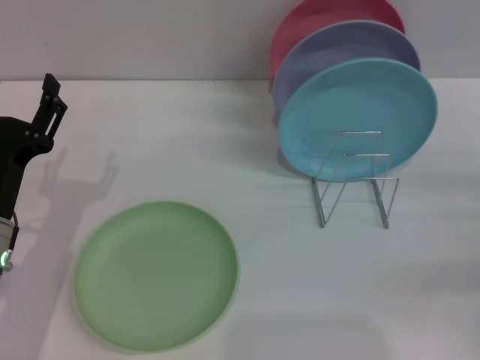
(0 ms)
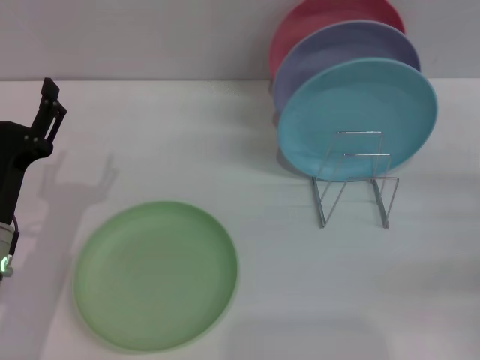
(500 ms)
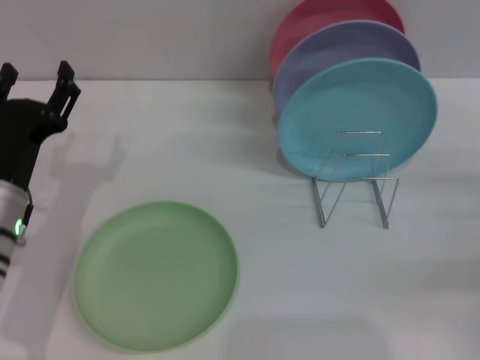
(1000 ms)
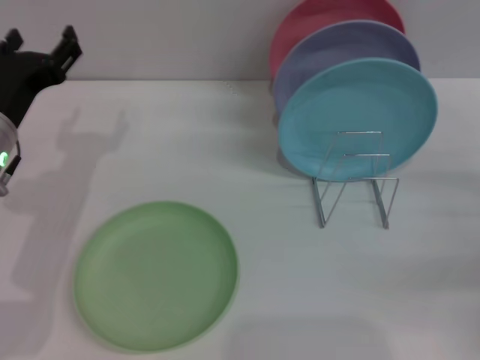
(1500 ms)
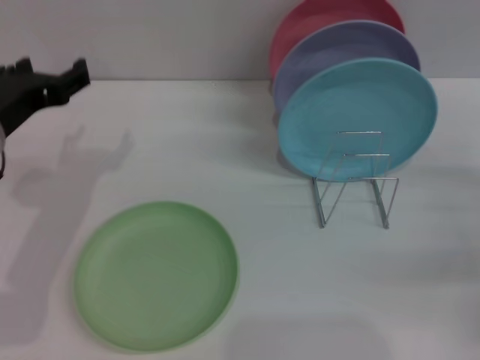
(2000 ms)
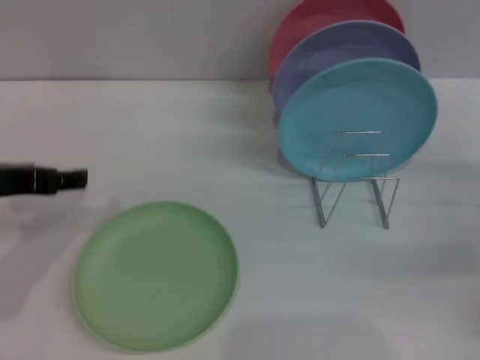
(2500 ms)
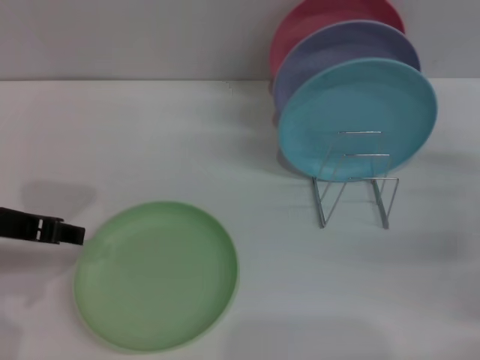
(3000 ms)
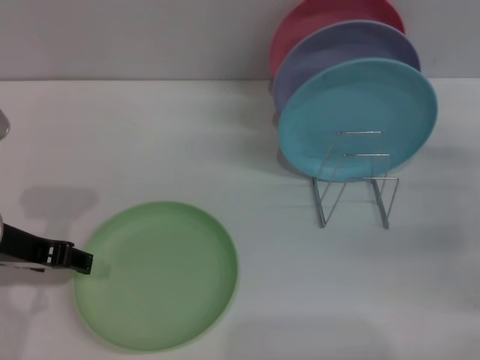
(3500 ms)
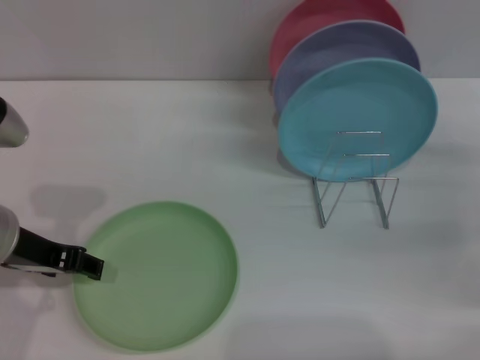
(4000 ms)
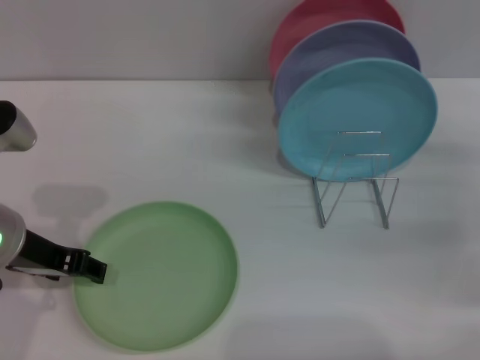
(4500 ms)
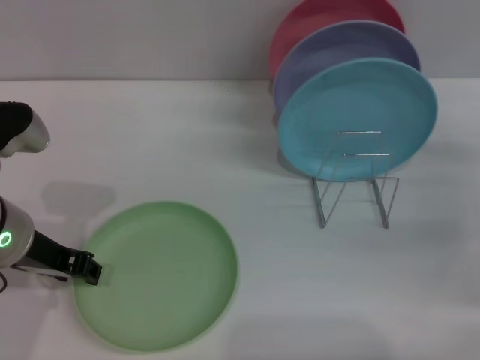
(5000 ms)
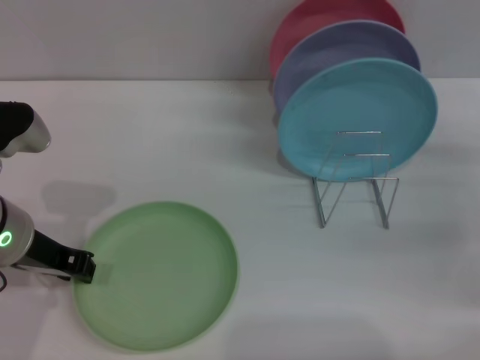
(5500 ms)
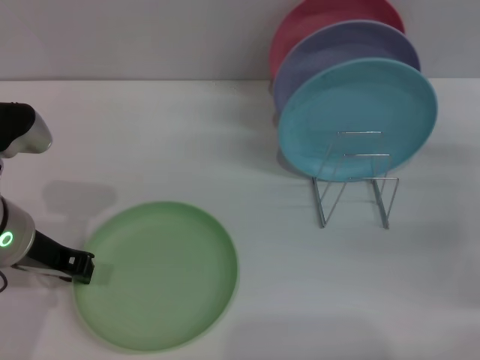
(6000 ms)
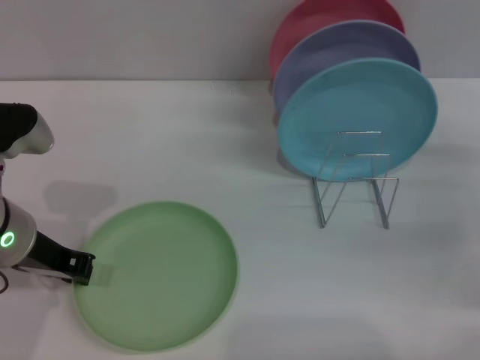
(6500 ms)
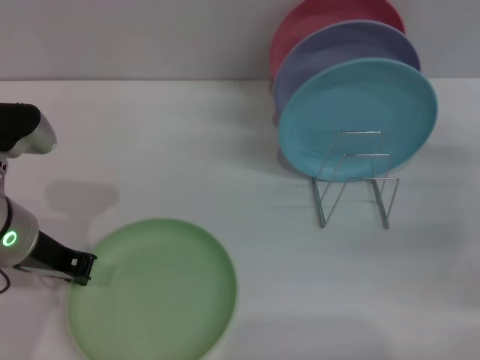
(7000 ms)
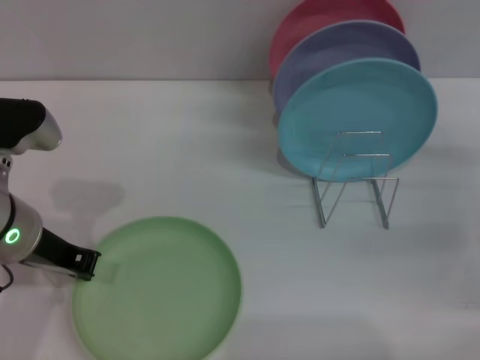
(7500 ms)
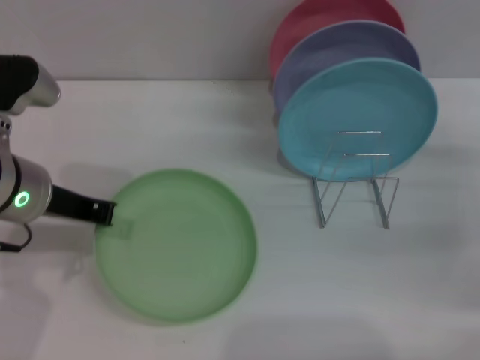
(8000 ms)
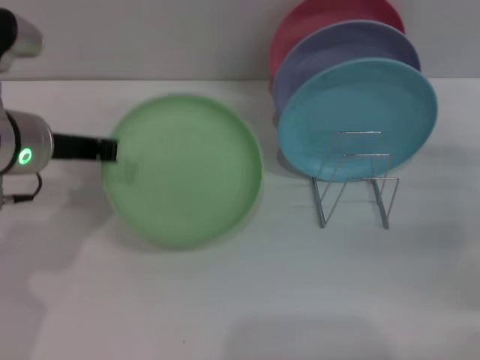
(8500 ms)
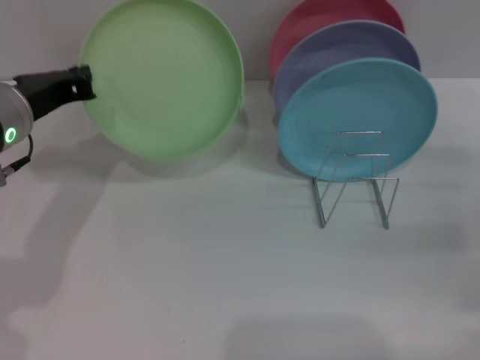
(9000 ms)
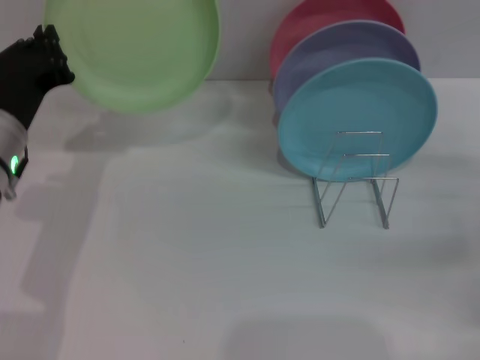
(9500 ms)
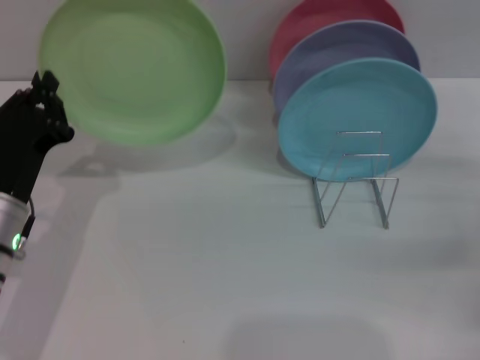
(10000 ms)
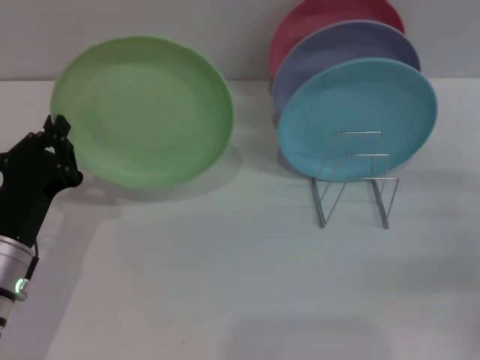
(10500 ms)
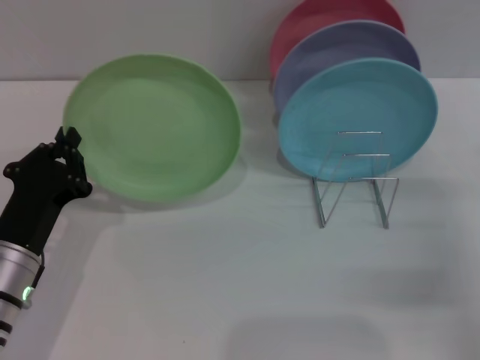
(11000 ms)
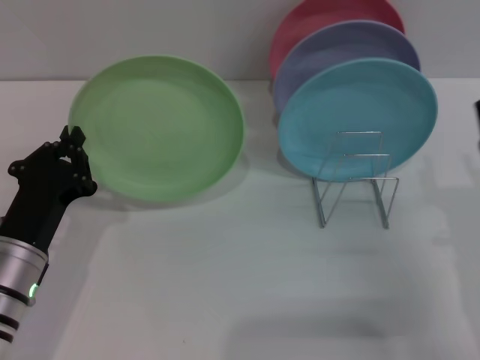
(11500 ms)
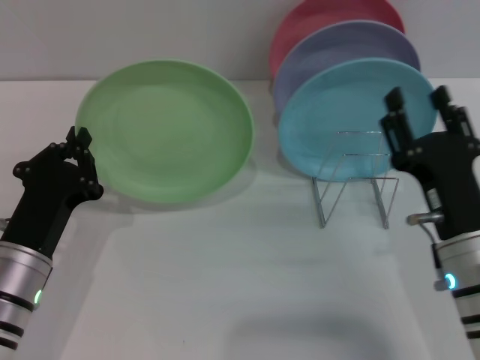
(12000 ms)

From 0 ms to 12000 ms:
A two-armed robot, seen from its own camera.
Task of the whole recording: Grip the plate with one hand, pass it to the other, then set it on the shelf.
Step, from 0 ms to 7500 ms: Pick up the plate with the left gripper.
From 0 ms to 2000 ms: The left gripper is displaced upward by roughly 10 cm.
From 4000 ms to 6000 ms: The left gripper closes its fingers.
From 6000 ms to 8000 ms: The grippers stay close to where they were, moving slightly.
From 8000 ms to 10000 ms: The left gripper moves downward, approximately 10 cm.
From 10000 ms to 12000 ms: The right gripper moves to the left and backward, some 15 cm.

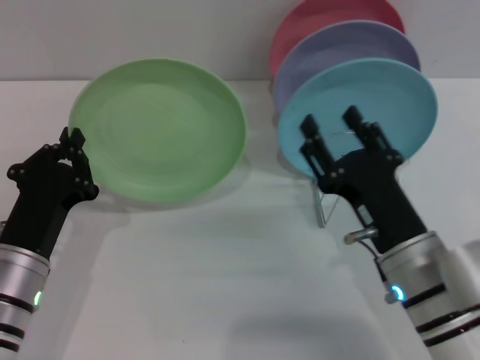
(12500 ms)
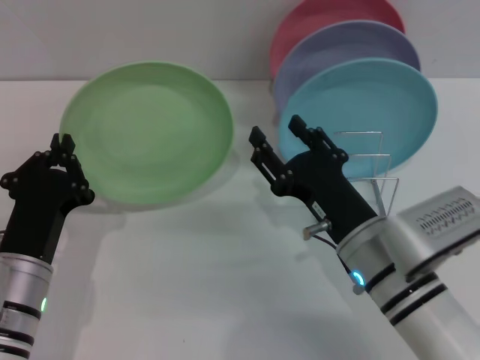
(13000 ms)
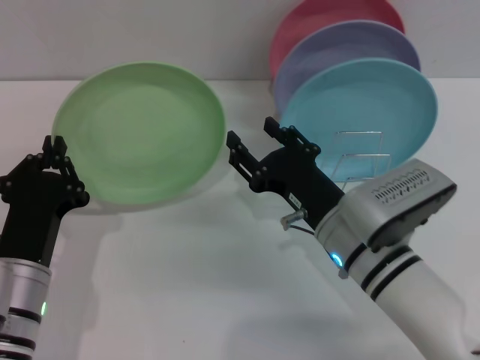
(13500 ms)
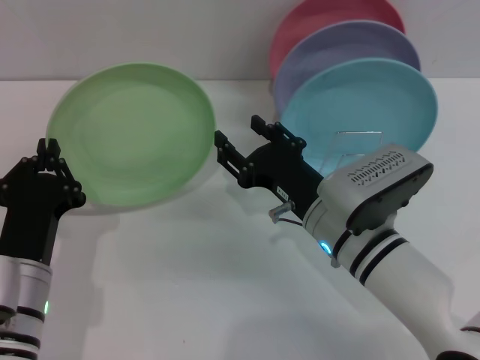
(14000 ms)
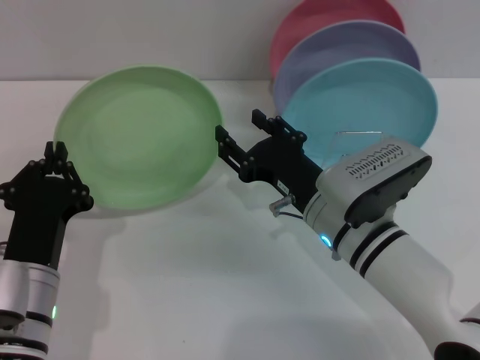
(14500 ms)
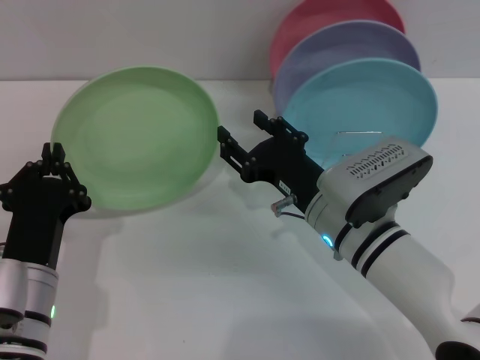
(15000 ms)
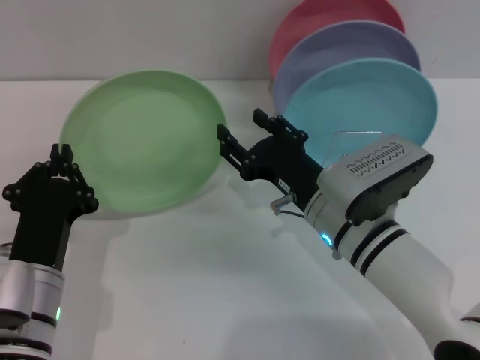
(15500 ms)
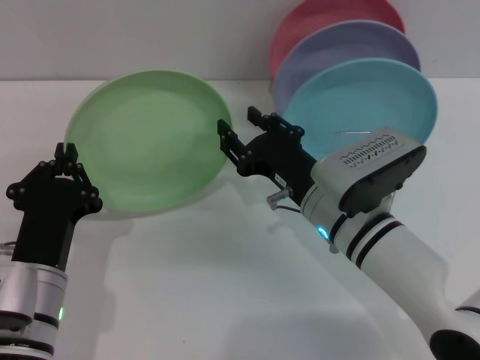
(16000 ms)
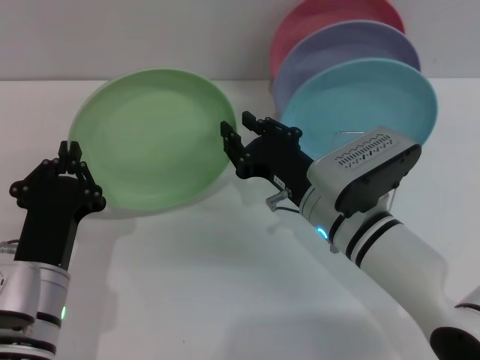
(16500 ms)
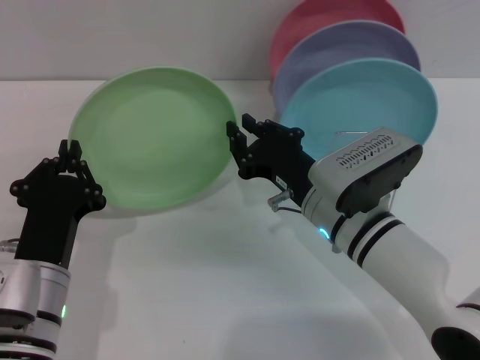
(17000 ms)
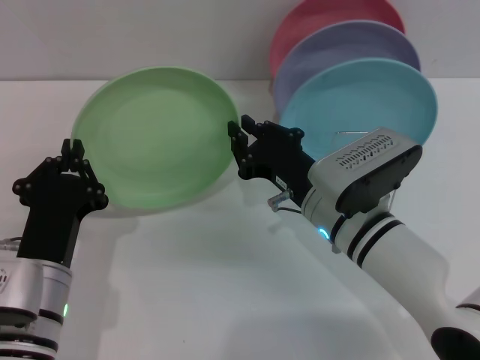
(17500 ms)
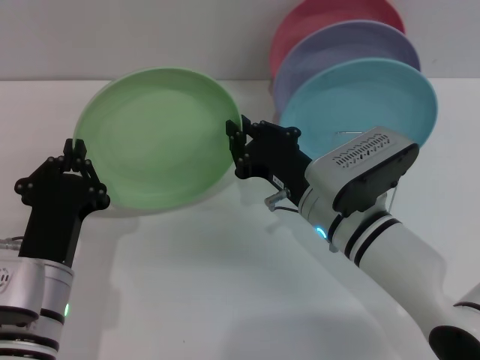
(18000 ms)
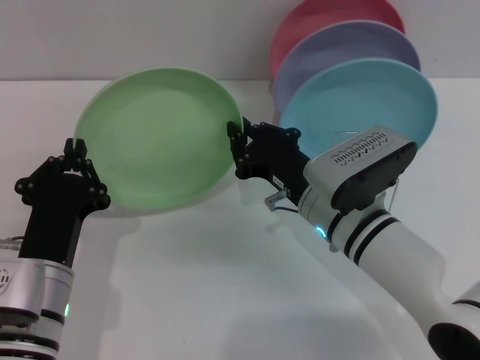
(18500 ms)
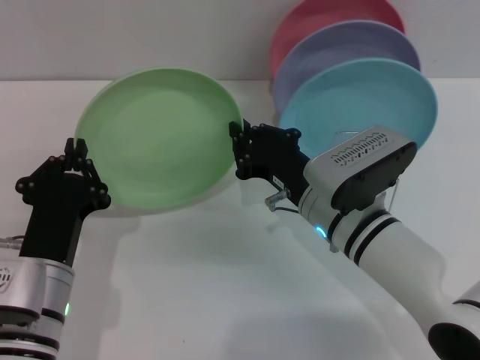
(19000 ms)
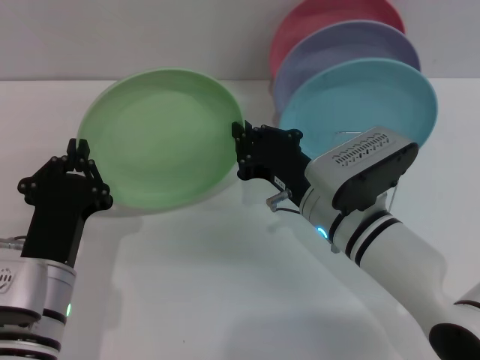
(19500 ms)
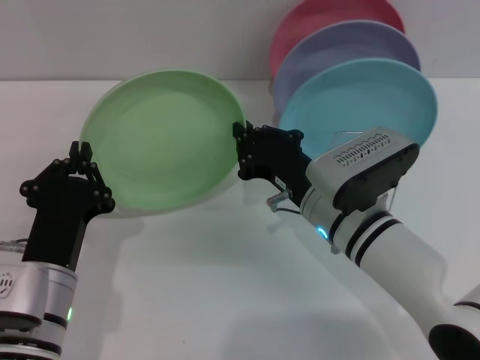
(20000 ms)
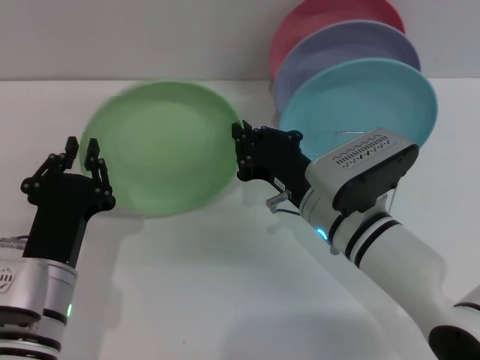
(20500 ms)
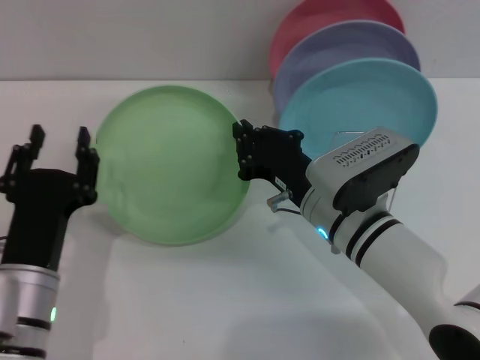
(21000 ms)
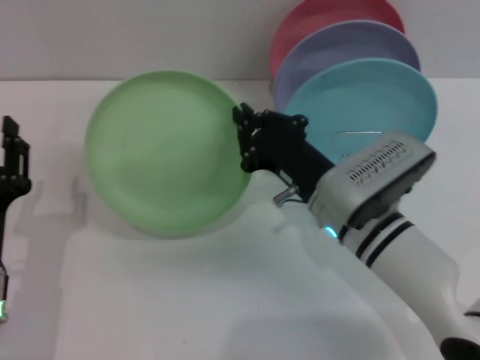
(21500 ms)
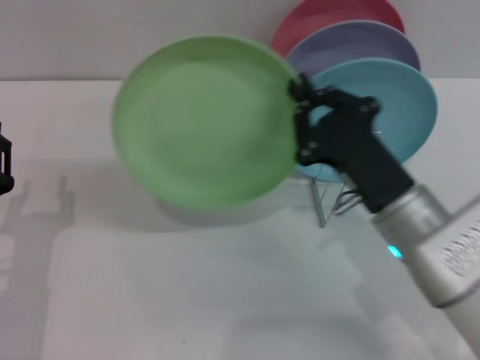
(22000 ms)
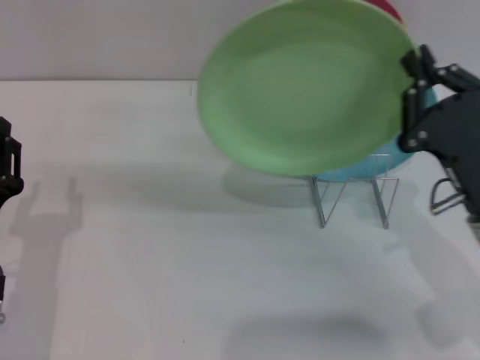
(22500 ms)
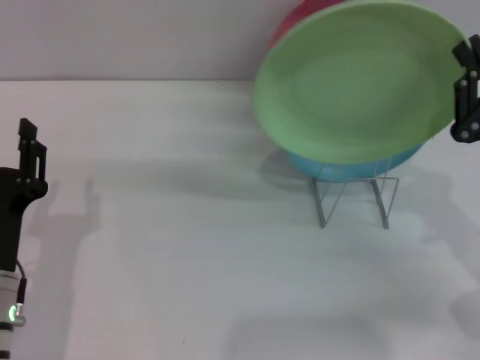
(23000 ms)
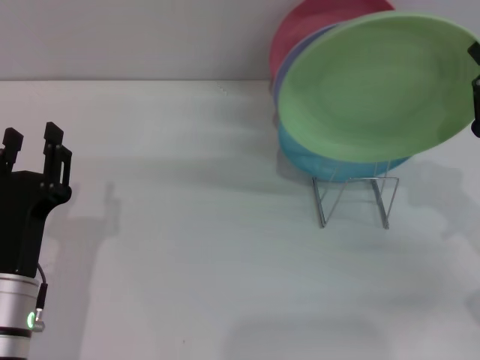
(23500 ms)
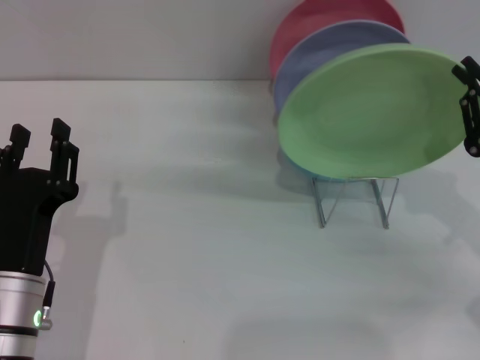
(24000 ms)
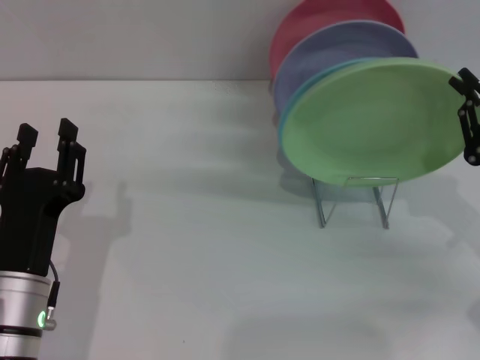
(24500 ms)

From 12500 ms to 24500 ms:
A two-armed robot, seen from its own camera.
Task of the whole recording: Grip the plate with one hand, pass it to the other, then set it on the shelf.
Step, from 12500 ms to 20500 ms: Pass the plate from the left gripper to the right gripper.
From 12500 ms to 14500 ms: The right gripper goes roughly 5 cm forward.
From 14500 ms to 16500 ms: The right gripper closes its fingers.
From 16500 ms to 18500 ms: The right gripper closes up.
From 18500 ms to 20500 ms: Both grippers stay put.
From 20500 ms to 22500 ms: The right gripper shifts roughly 15 cm to the right and backward, while the left gripper shifts roughly 5 cm to the left, and opens up.
From 22500 ms to 24500 ms: The right gripper shifts some 10 cm to the right.

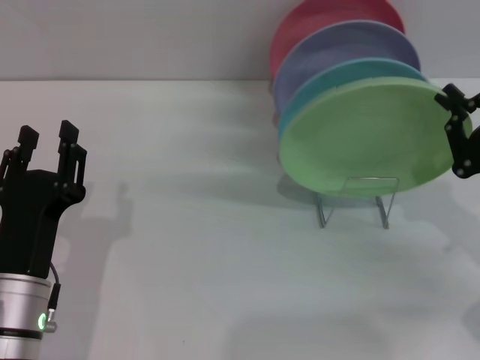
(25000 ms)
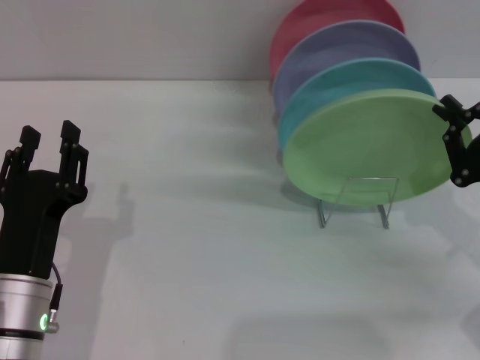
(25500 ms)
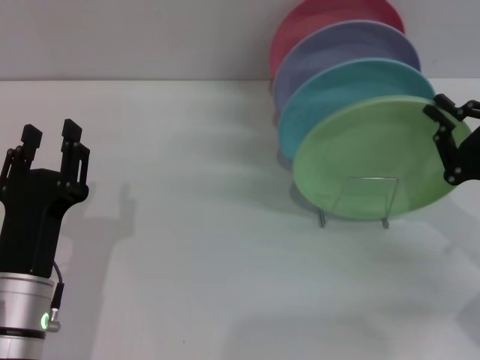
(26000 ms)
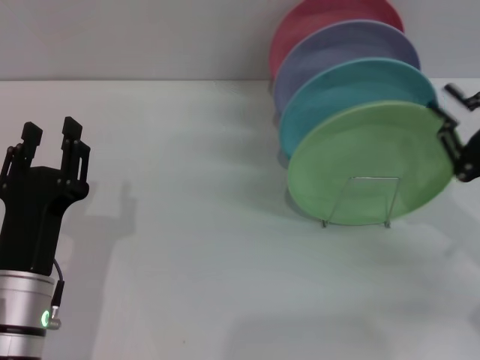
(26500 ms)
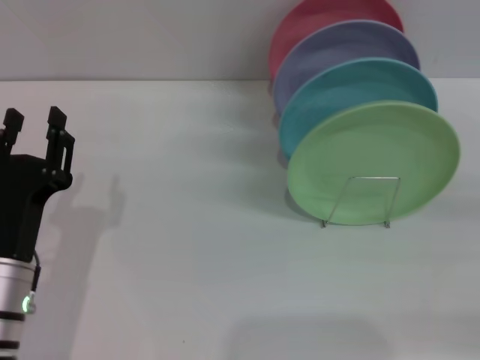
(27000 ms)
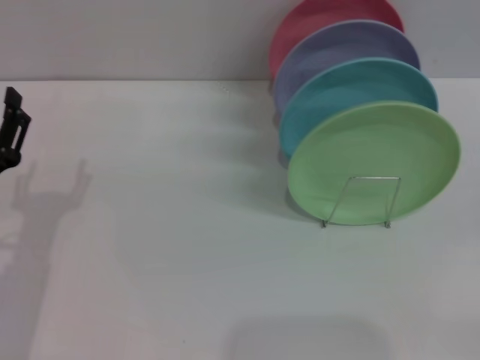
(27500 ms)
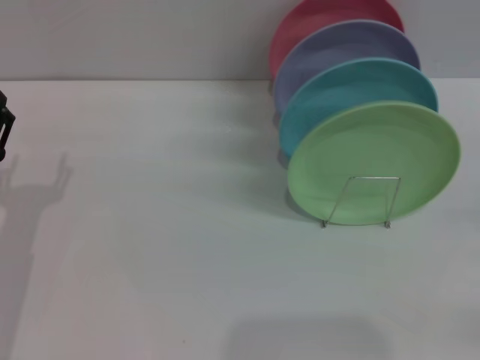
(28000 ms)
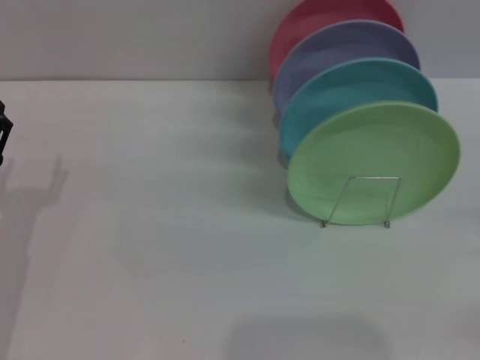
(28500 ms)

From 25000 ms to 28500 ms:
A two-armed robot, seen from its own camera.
Task of the whole recording: Grip the plate with one hand, pass it to the other, then set it on the shelf.
From 25000 ms to 27000 ms: The right gripper moves to the right, roughly 10 cm.
From 27000 ms to 28500 ms: The left gripper goes about 5 cm to the left.
